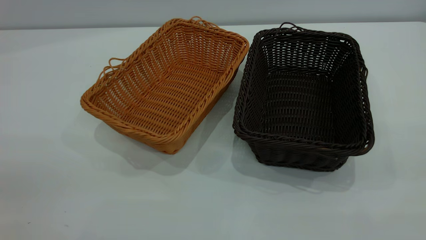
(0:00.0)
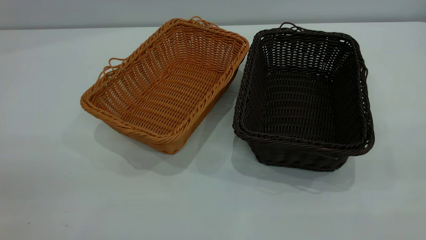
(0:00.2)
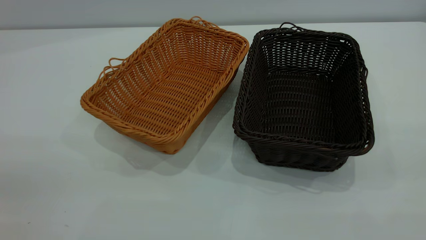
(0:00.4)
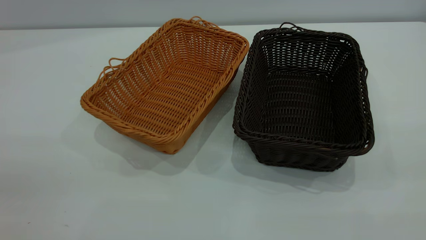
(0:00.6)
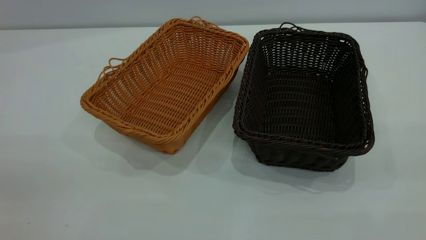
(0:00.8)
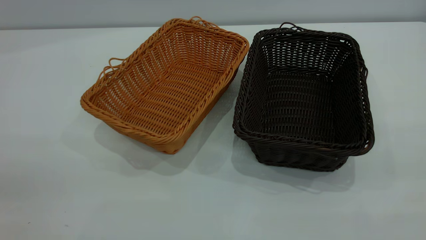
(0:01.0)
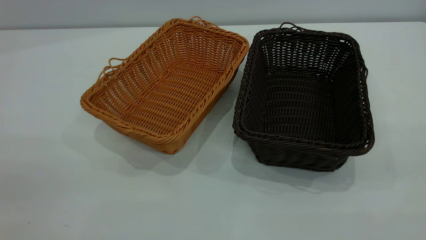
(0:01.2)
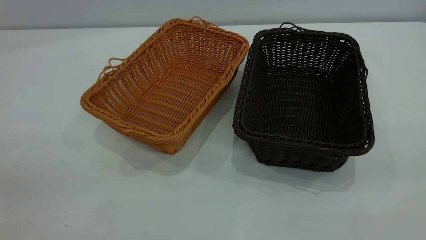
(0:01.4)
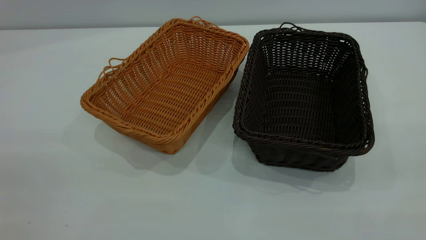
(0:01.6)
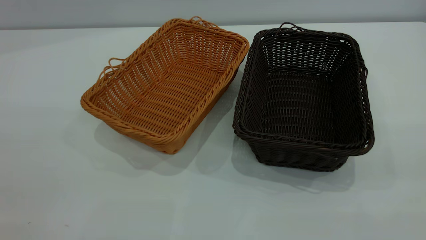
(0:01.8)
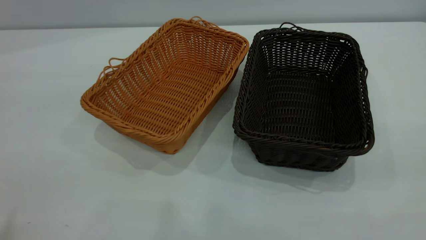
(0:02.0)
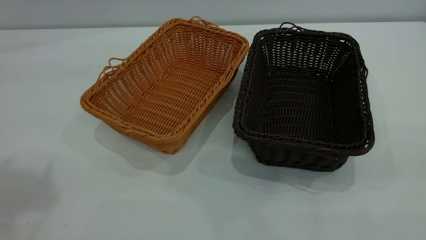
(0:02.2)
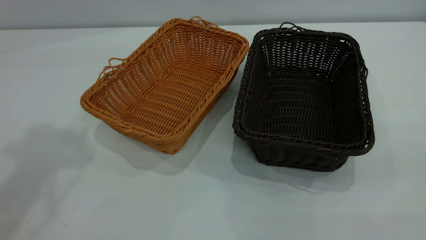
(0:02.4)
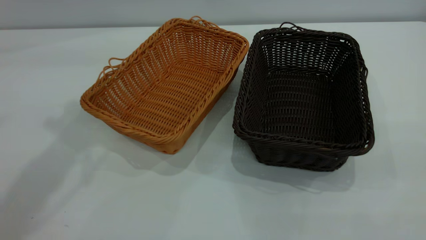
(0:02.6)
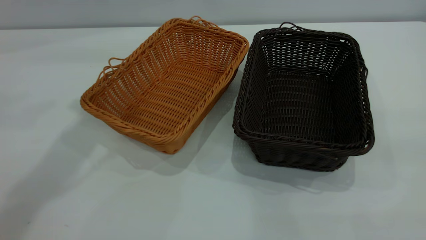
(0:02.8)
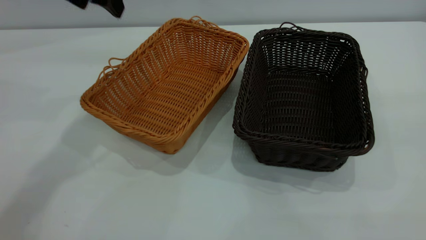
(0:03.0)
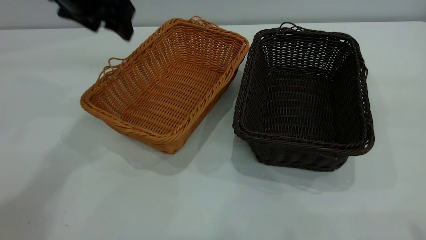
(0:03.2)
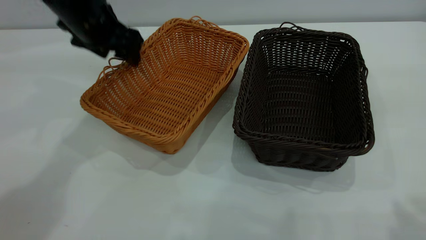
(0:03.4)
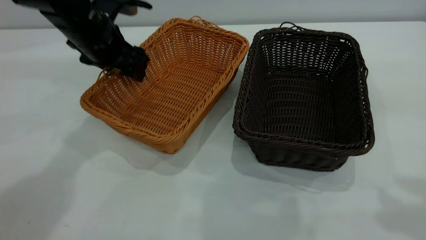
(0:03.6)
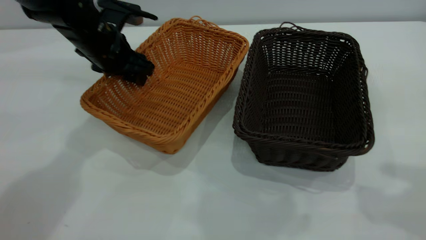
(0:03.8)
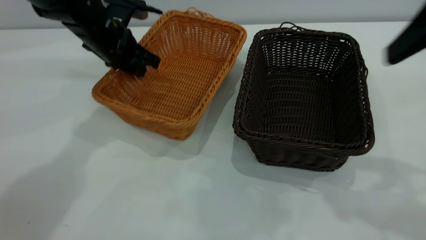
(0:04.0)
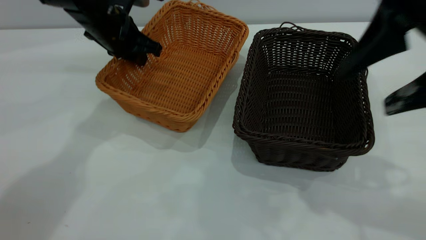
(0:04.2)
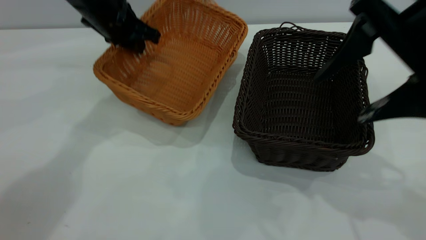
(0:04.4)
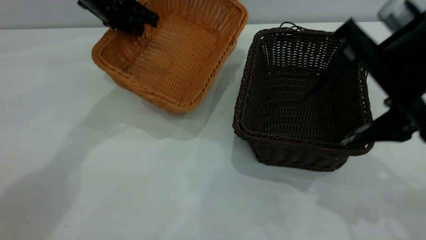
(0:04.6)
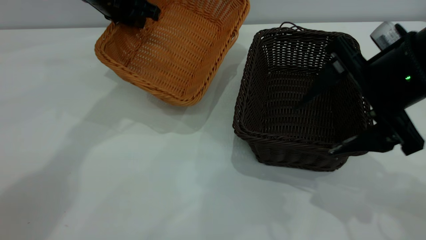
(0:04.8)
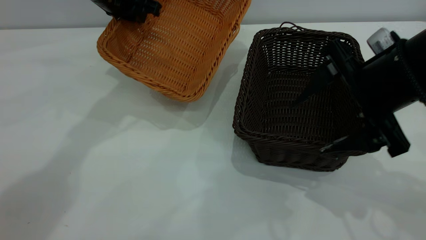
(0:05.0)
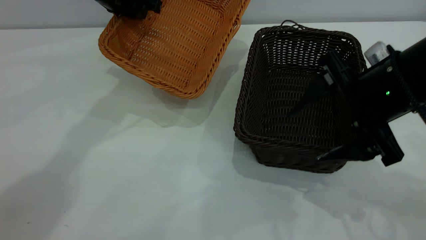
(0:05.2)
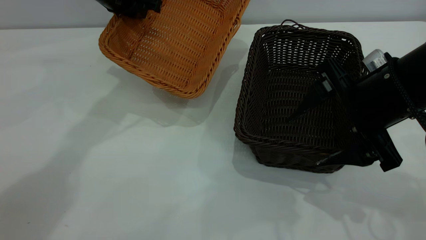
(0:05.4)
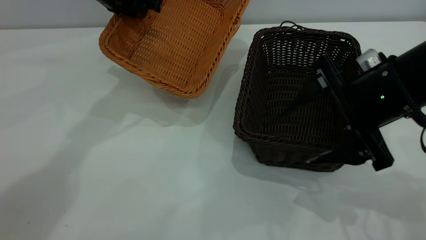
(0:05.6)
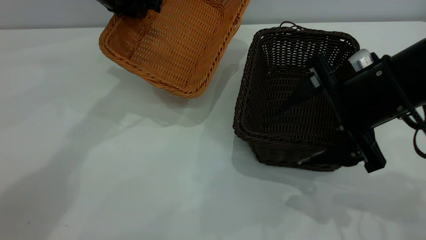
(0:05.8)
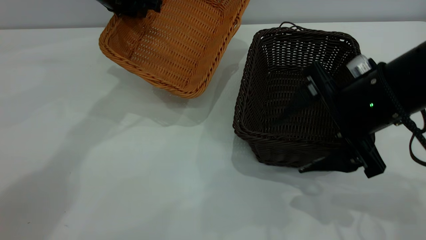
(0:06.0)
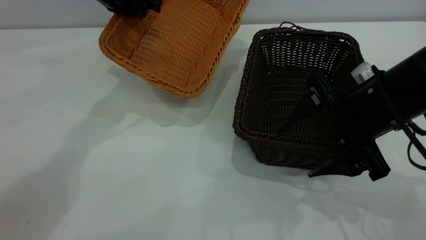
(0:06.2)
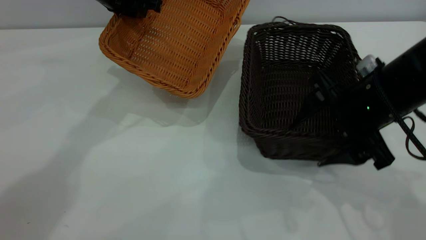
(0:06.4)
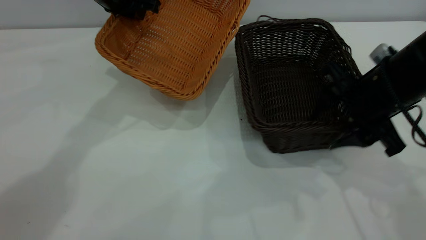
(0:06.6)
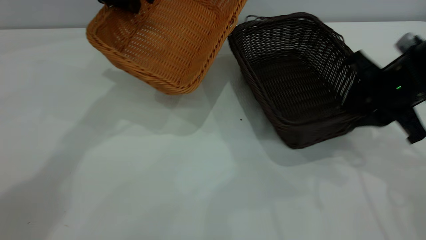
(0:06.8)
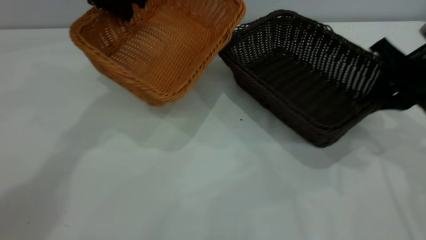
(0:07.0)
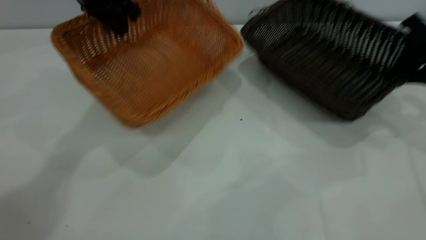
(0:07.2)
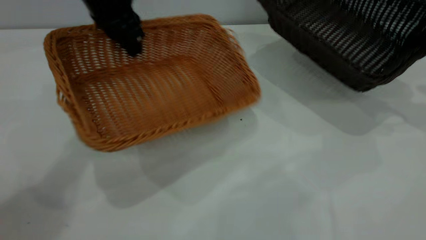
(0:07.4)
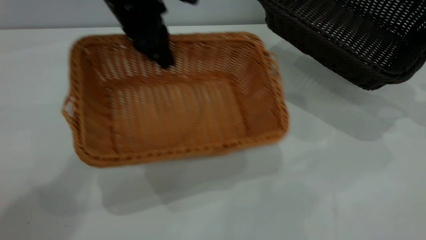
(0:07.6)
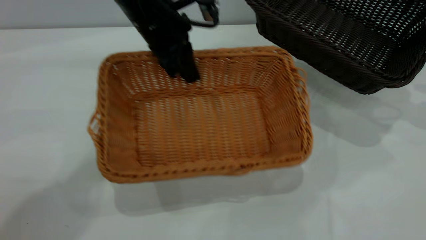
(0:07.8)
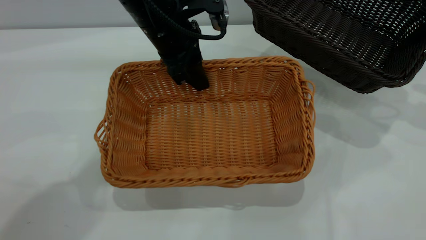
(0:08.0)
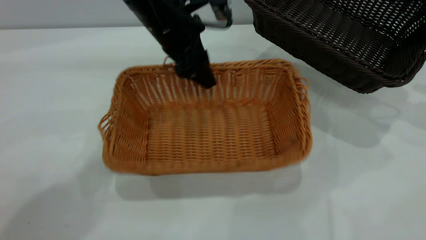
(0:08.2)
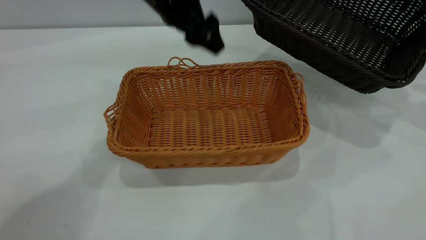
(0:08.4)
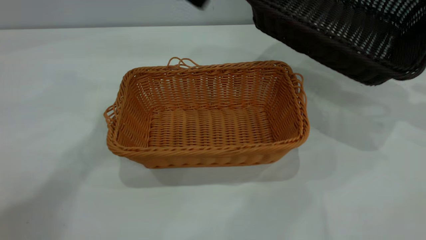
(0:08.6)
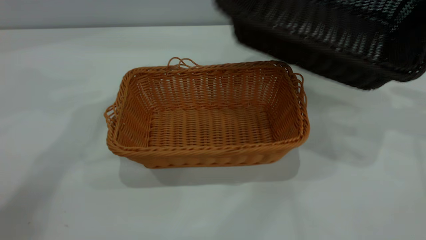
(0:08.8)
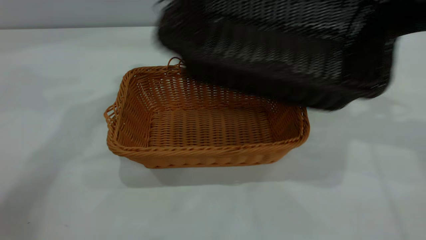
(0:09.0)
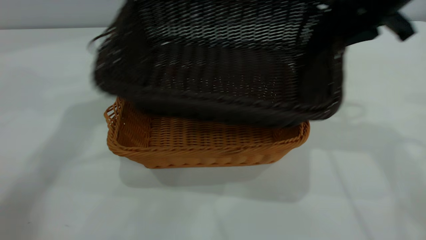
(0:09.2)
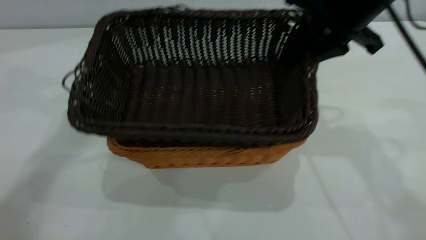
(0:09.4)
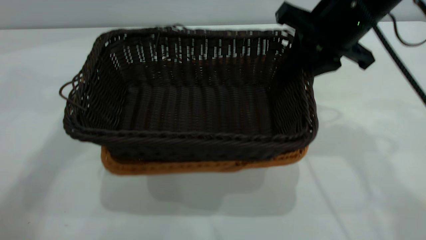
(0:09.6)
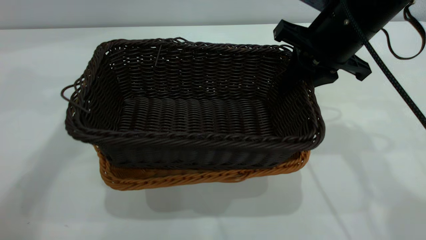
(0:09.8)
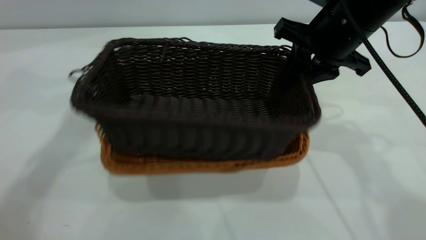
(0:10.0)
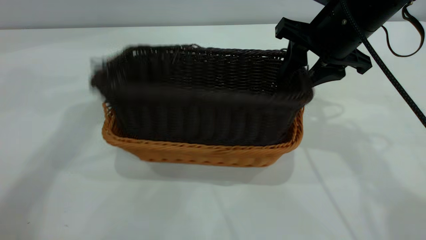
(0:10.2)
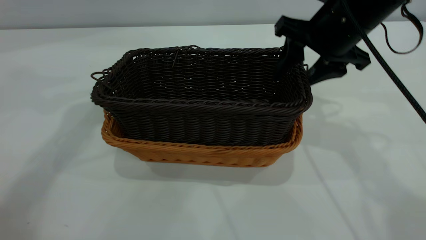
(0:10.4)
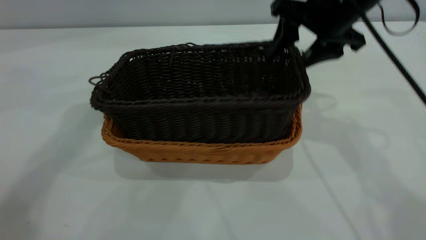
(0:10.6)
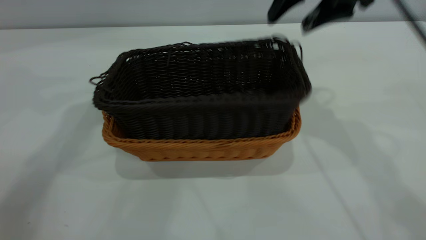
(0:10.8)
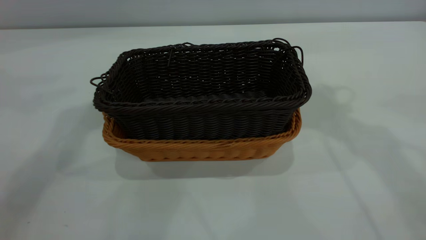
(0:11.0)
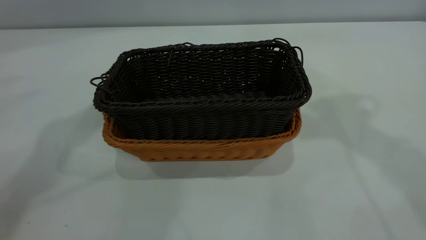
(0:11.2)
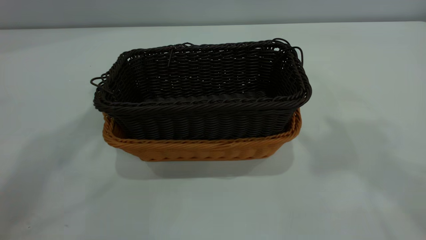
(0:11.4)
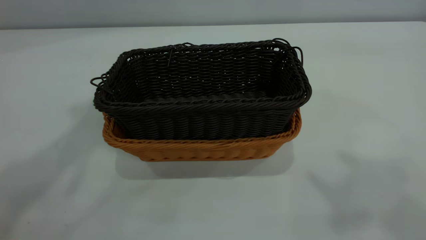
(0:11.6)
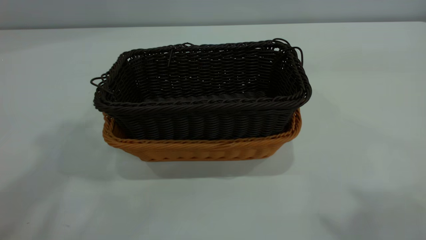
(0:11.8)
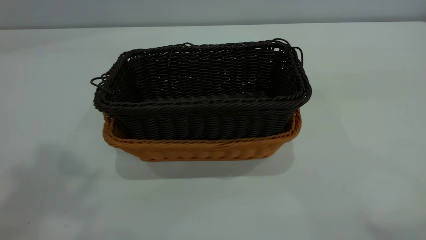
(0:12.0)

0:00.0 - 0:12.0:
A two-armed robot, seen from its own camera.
Task of the whole recording: the left gripper grasp the brown basket and place it in the center of the table, the right gripper grasp the black basket and place it inside the brown one.
Step, 0:00.0 - 0:07.2: Pick up the light basket with the right gripper.
Step, 0:07.4 - 0:08.2: Place the light-colored basket in the center.
Step, 0:08.6 - 0:10.6: Place the dark basket on top of the light basket.
0:01.6 - 0:03.0: The left gripper is displaced forward by about 40 cm.
0:03.0 - 0:04.4: The right gripper travels forward, downward and to the left by some 25 cm, while the left gripper is displaced downward and forward by about 10 cm, and closes.
0:04.4 - 0:06.0: The right gripper moves downward, roughly 10 cm.
0:06.0 - 0:07.6: The right gripper goes about 25 cm to the right and forward, and closes its fingers. Meanwhile the left gripper shifts approximately 10 cm backward and to the right.
0:07.6 - 0:09.0: The left gripper goes roughly 10 cm upward and to the left, and opens up. The right gripper travels to the left and upward by about 15 cm.
0:09.0 - 0:10.4: The right gripper goes approximately 10 cm to the left and downward, and opens its fingers.
0:10.4 - 0:12.0: The two grippers go roughly 35 cm upward and backward.

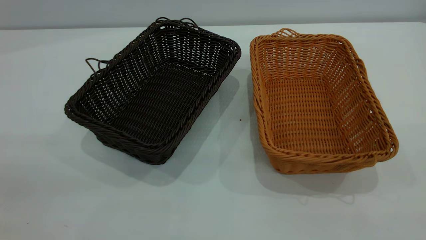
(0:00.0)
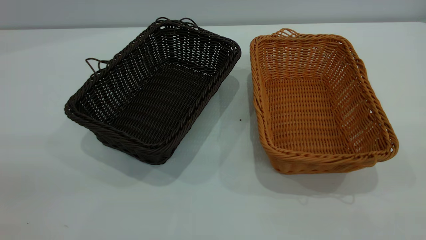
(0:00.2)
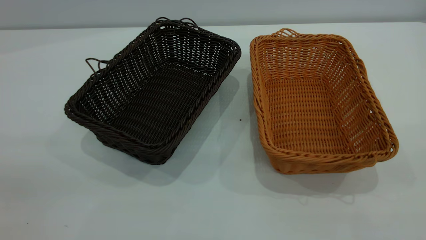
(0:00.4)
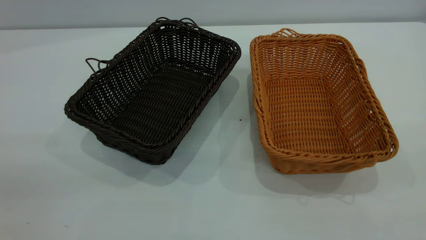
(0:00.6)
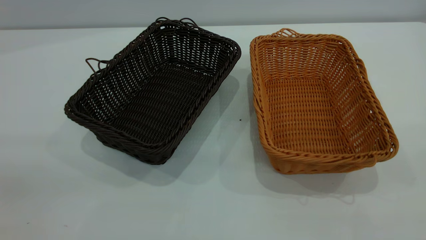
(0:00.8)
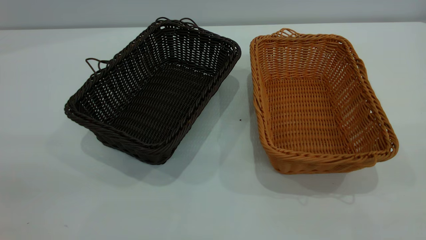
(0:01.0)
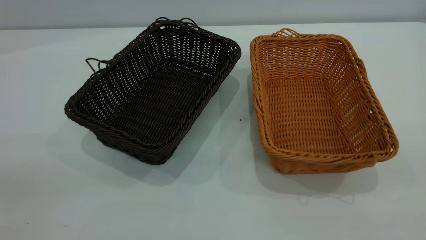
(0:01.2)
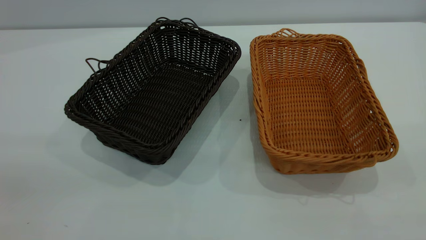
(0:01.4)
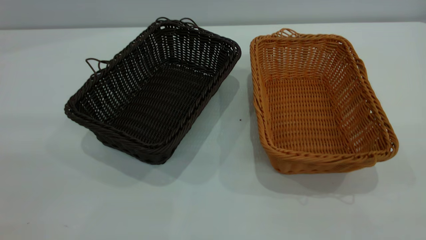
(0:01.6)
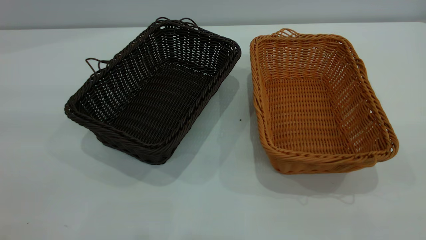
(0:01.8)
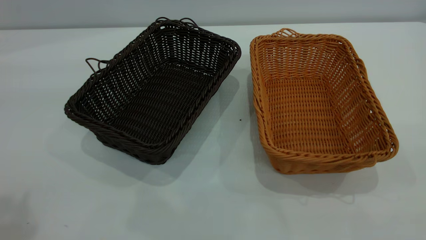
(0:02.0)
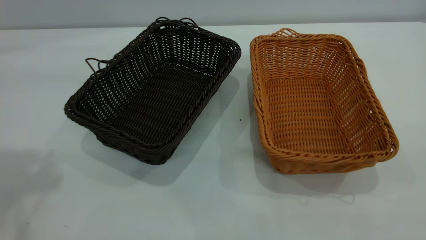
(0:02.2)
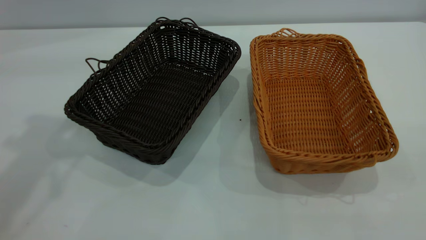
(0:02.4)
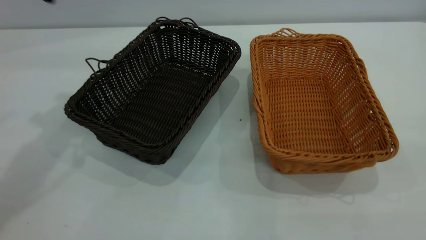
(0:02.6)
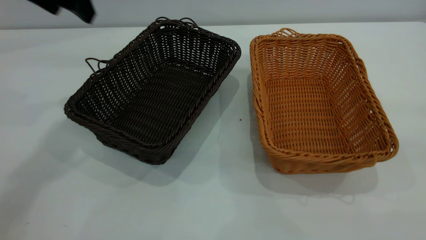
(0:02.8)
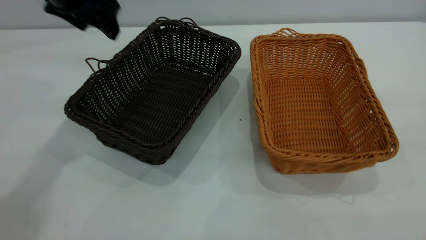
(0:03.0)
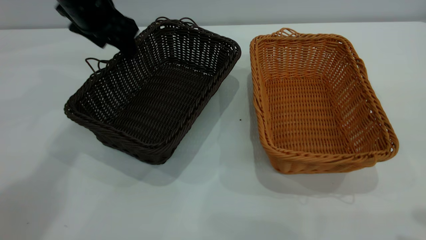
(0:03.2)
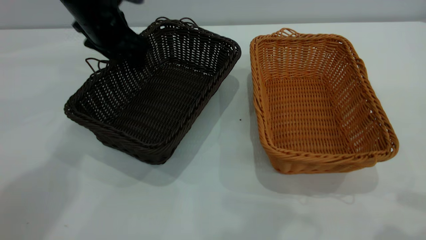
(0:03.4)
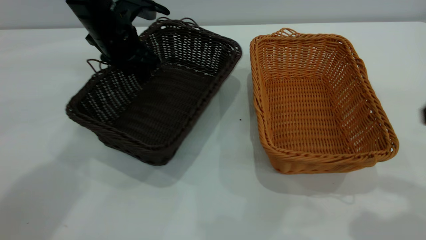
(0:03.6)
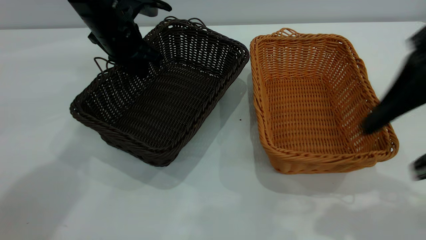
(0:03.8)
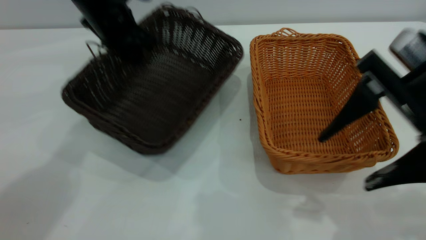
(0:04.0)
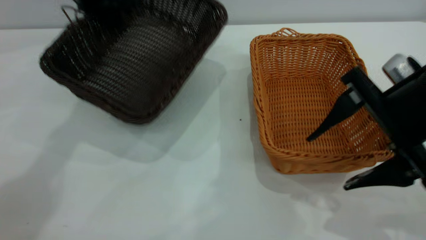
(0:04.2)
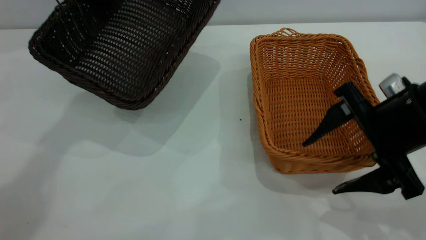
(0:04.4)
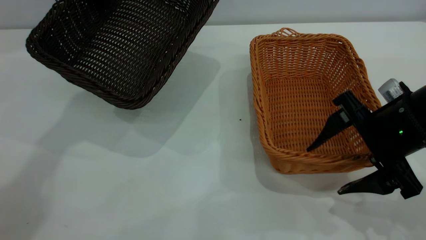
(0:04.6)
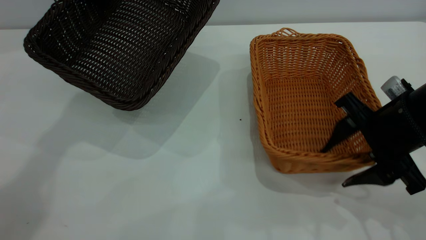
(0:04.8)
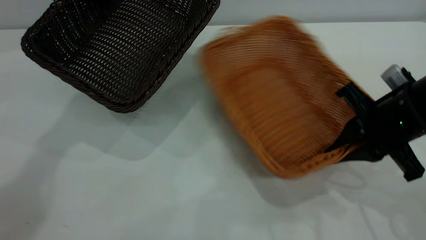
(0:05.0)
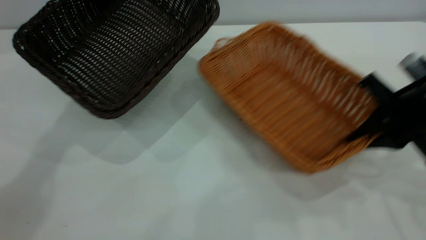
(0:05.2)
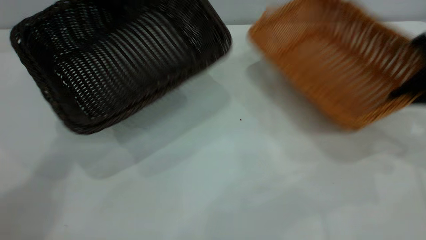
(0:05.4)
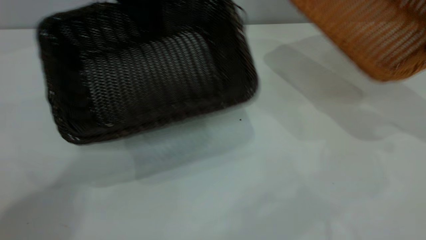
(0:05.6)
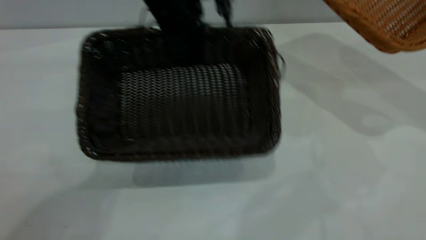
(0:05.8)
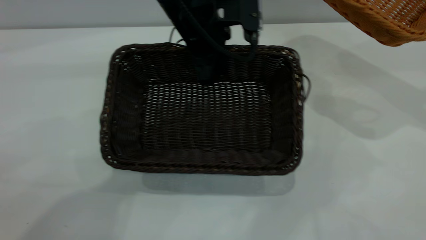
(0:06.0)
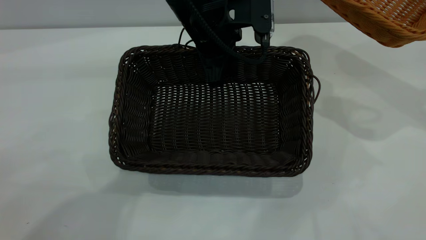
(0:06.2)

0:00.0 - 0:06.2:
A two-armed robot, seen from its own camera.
Task of the whole recording: the left gripper grasp the black basket and place it in the center of the table, the right gripper grasp the brown basket and place it inside the black one.
Step, 0:00.0 - 0:05.2: Pick up the light basket with the right gripper.
0:01.6 - 0:03.2: The left gripper is displaced forward and downward by roughly 50 cm.
0:03.2 - 0:04.6: The right gripper moves downward and forward, approximately 25 cm. Meanwhile the left gripper travels upward by some 5 cm, and closes up.
0:04.6 - 0:06.2: The left gripper heads to the right and backward, covering some 20 cm. The right gripper goes some 25 cm to the right, upward and forward, and closes up.
